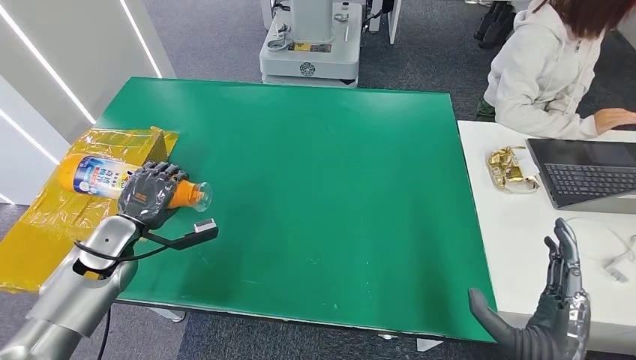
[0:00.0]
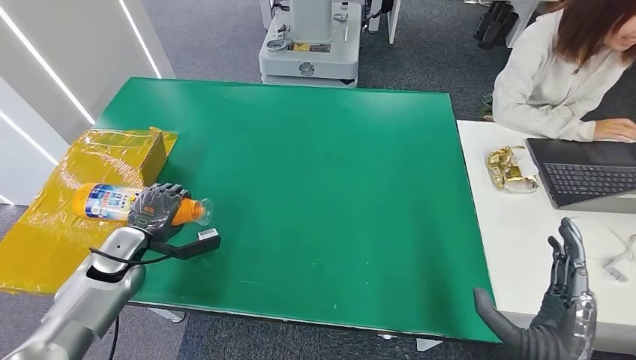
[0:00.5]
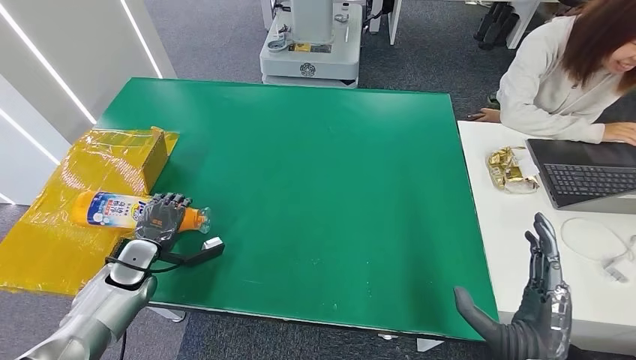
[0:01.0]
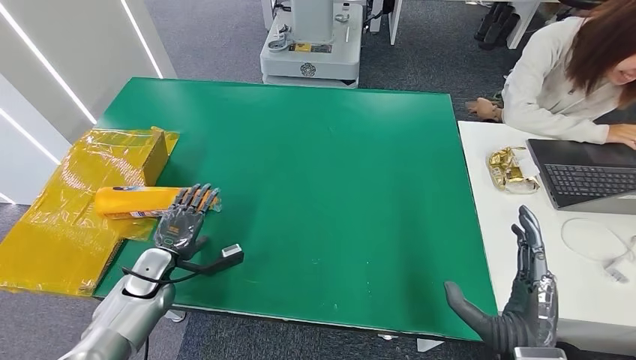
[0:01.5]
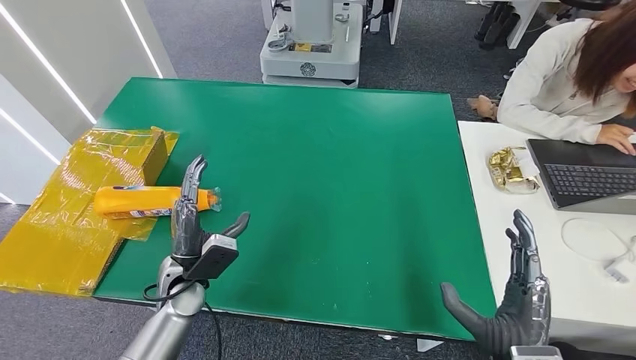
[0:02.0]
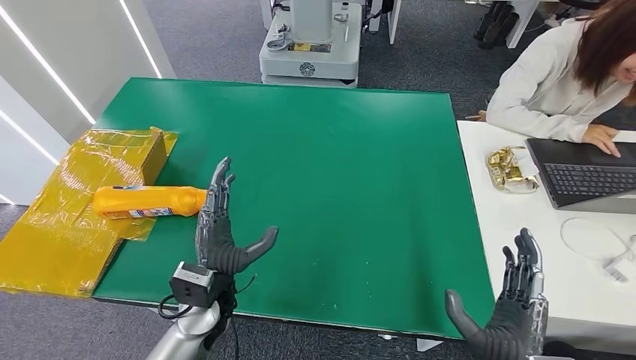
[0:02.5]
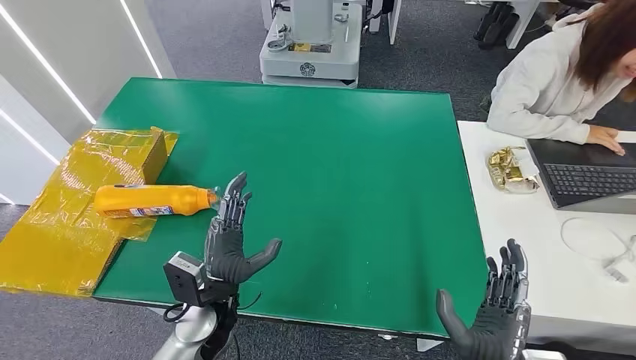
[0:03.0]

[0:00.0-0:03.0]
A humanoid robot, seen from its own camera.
Step, 0:00.0 to 0:02.5: Turn the bottle to the front side.
0:00.0 to 0:01.5: The left hand travels downward by about 10 cm.
0:01.5 to 0:03.0: The left hand moves to the right, about 20 cm; the right hand shifts about 5 cm to the left.
